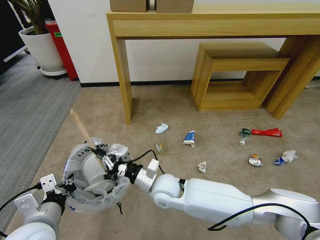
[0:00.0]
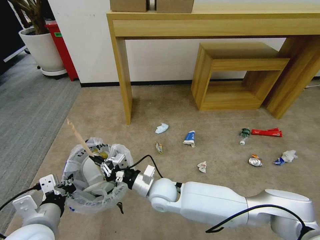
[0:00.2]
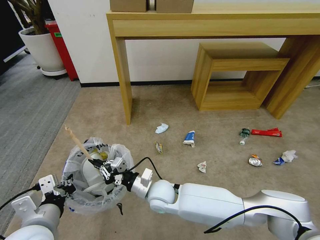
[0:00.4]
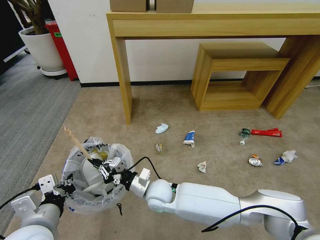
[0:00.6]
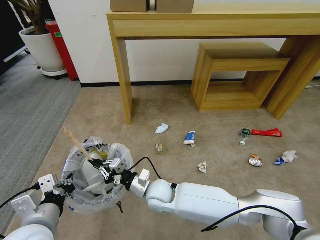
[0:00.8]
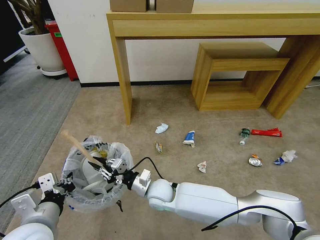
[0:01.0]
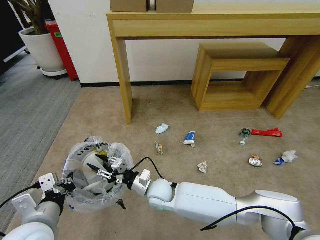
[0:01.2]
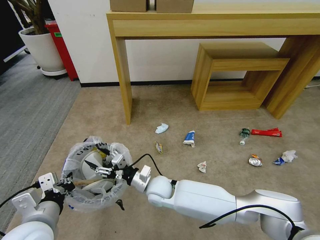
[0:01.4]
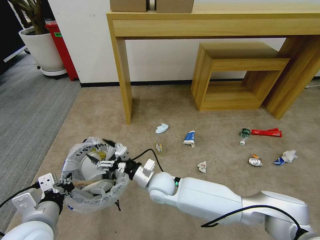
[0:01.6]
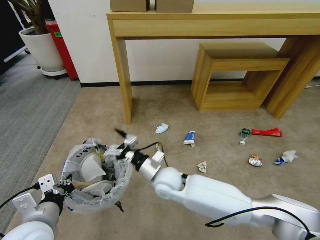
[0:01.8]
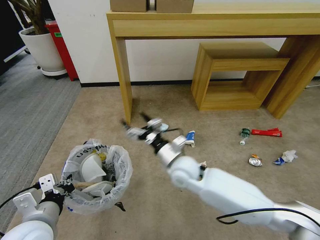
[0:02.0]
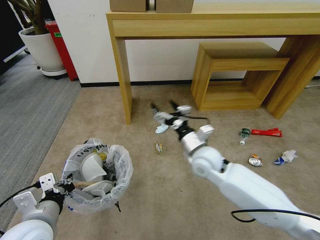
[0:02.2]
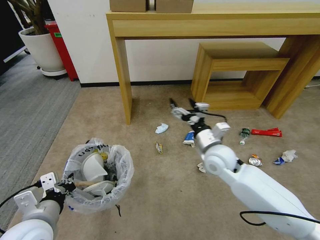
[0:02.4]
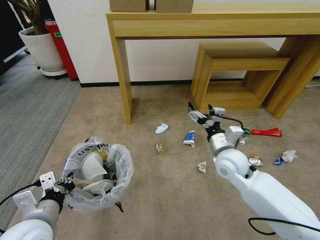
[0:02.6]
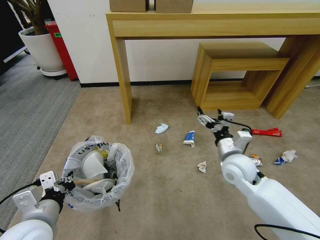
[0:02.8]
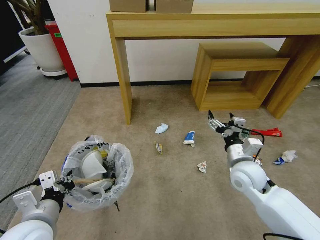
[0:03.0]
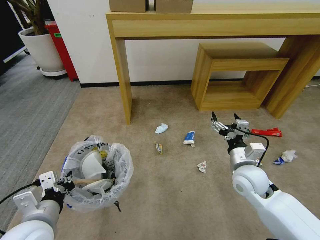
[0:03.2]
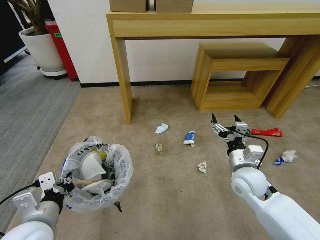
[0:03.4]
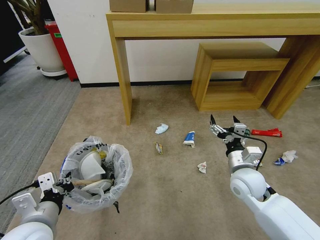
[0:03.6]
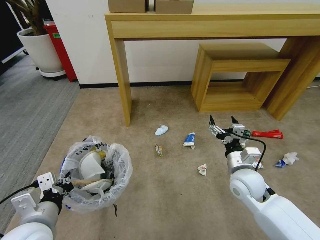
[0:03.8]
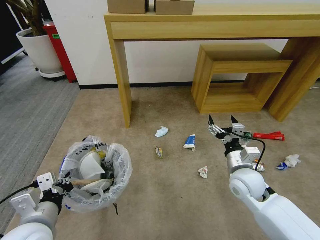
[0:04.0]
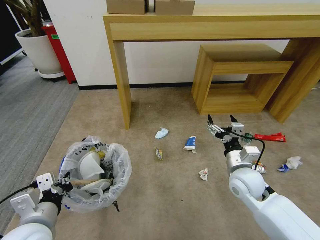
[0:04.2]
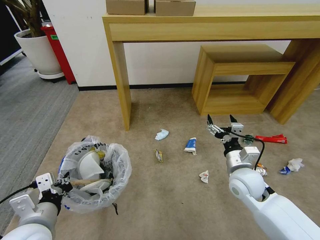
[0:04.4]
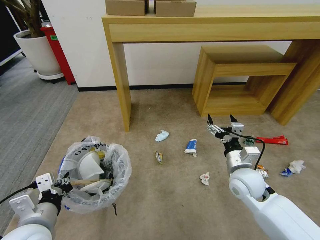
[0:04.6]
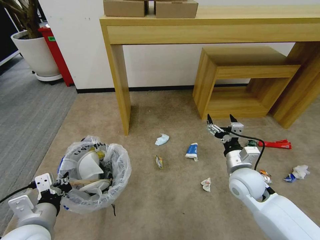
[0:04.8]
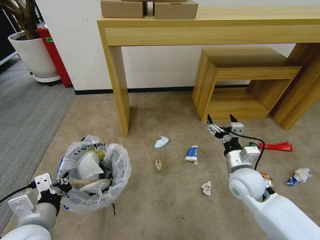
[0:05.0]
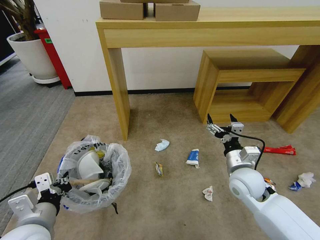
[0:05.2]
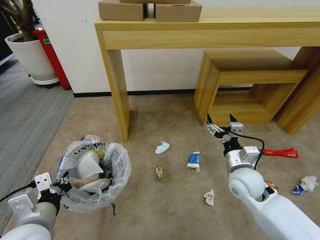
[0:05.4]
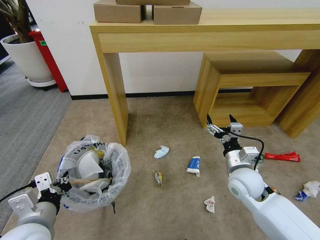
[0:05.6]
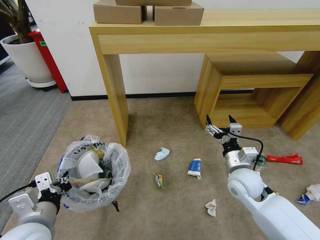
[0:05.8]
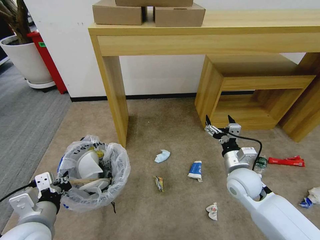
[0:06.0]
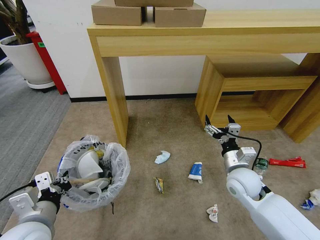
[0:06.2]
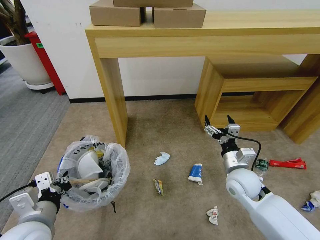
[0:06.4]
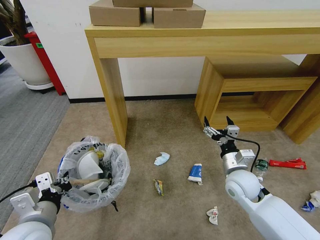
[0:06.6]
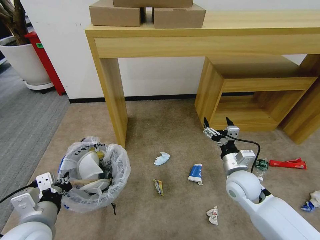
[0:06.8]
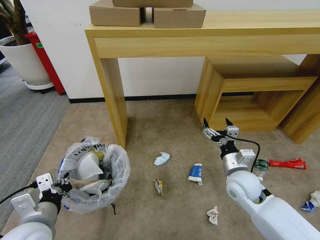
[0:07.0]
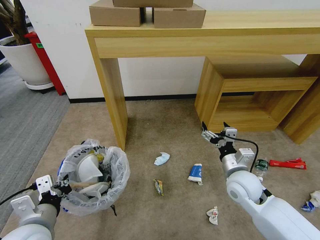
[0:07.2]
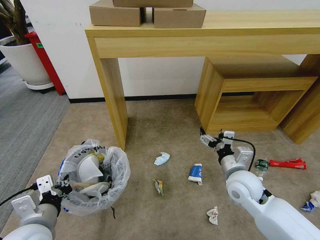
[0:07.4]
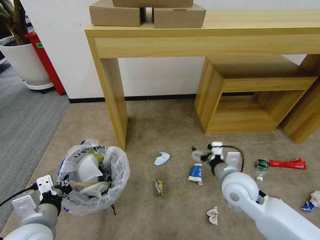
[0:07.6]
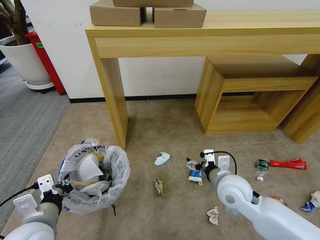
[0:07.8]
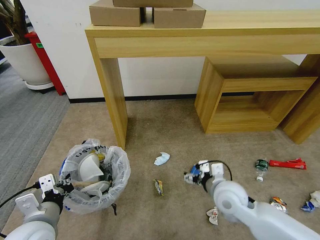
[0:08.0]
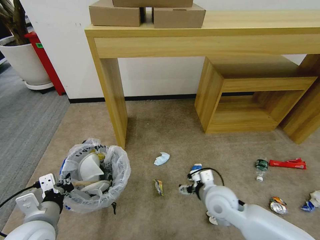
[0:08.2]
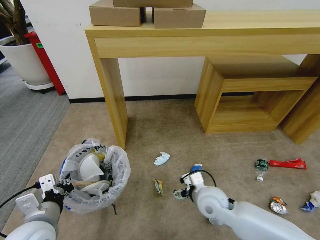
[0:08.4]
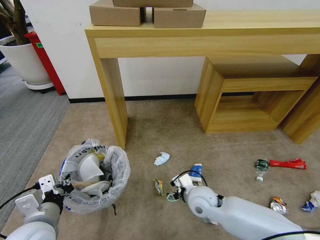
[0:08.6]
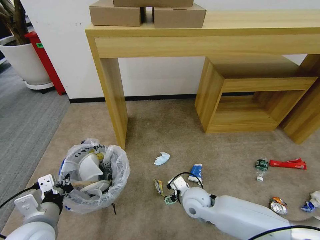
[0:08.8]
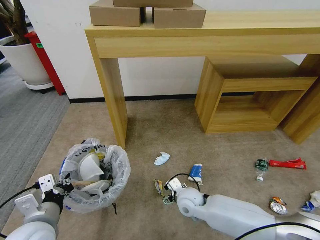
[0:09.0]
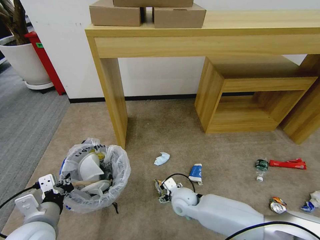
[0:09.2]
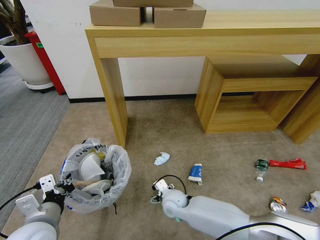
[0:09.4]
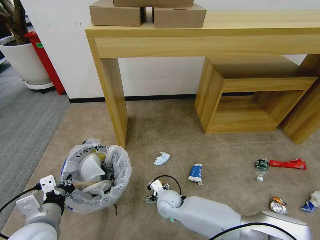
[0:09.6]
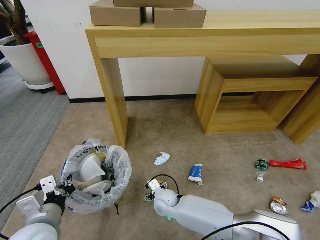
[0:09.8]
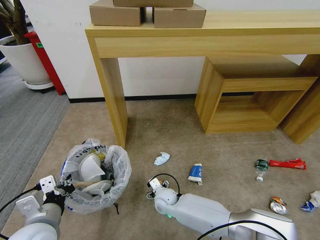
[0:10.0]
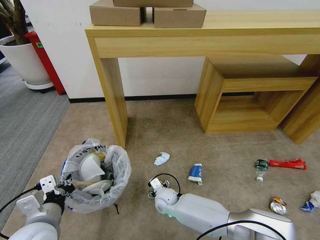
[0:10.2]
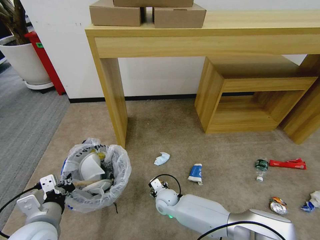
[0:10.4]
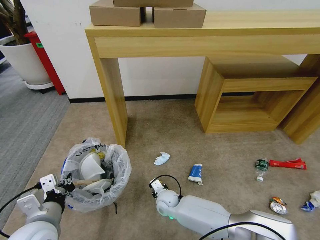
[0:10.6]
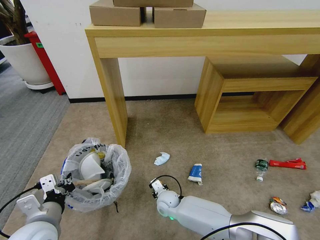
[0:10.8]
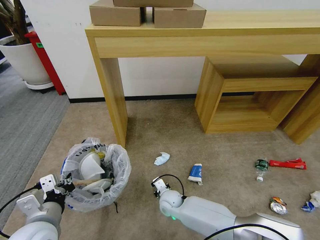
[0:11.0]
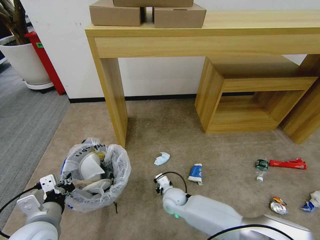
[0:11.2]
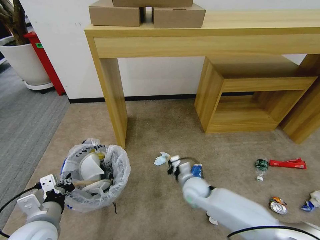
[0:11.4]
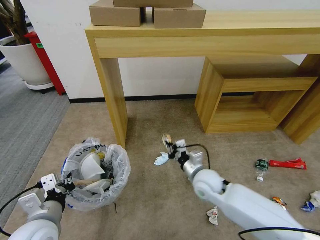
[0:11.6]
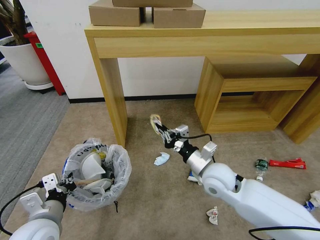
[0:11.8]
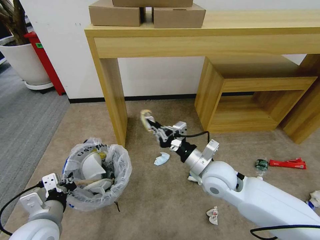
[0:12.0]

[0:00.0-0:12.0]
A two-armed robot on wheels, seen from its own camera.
Task of the whole recording: Pick up the trash bin and place the garbage on the floor into it.
0:00.0 to 0:01.6: The right gripper opens.
0:01.6 to 0:03.0: The right gripper travels to the right by some 25 cm.
0:06.0 to 0:07.6: The grippers stay close to where they were, moving slightly.
0:07.6 to 0:09.0: The right gripper heads to the left and downward, covering roughly 20 cm.
0:09.0 to 0:10.4: The right gripper goes about 10 cm downward and to the left.
0:10.4 to 0:12.0: The right gripper heads upward and to the right, covering roughly 30 cm, and closes its fingers.

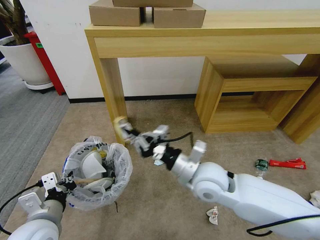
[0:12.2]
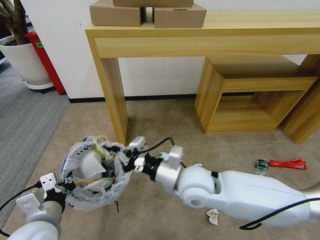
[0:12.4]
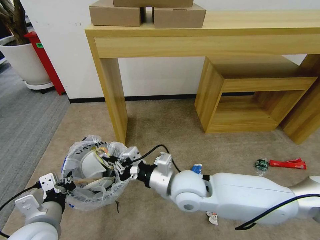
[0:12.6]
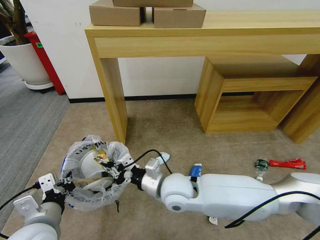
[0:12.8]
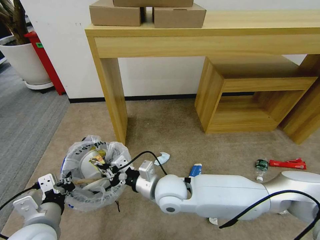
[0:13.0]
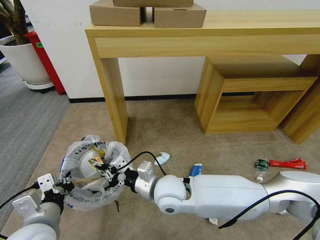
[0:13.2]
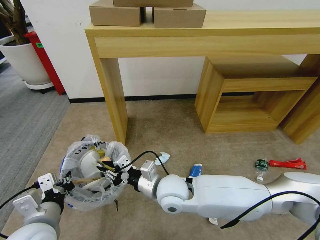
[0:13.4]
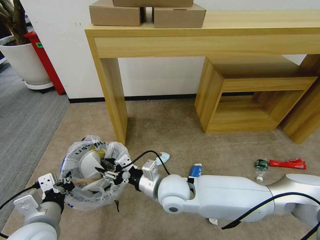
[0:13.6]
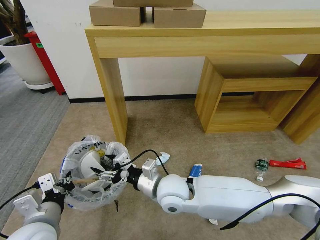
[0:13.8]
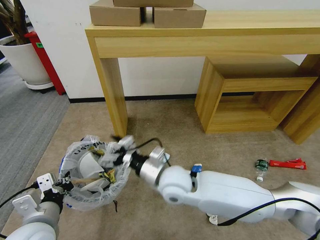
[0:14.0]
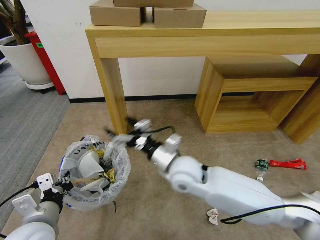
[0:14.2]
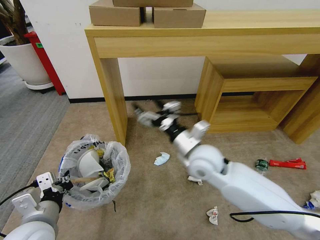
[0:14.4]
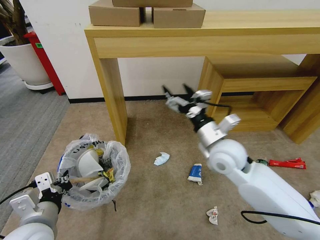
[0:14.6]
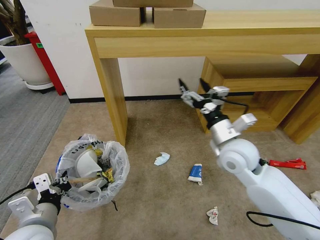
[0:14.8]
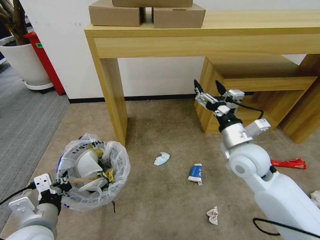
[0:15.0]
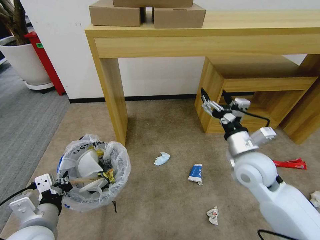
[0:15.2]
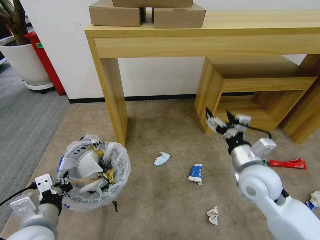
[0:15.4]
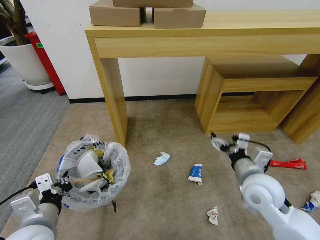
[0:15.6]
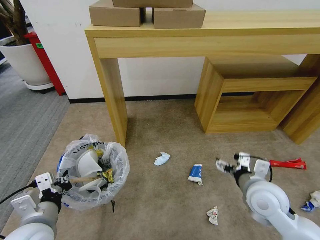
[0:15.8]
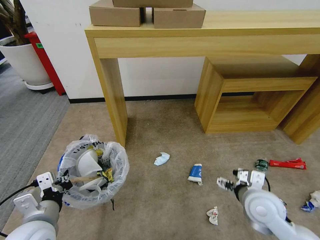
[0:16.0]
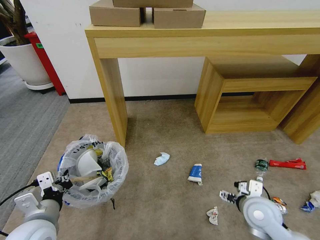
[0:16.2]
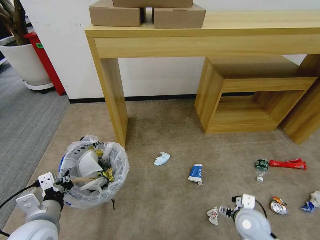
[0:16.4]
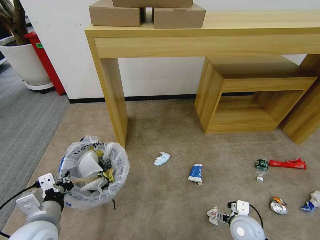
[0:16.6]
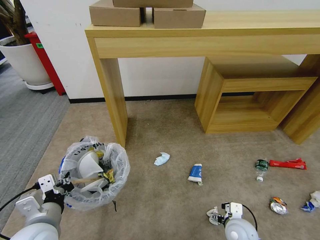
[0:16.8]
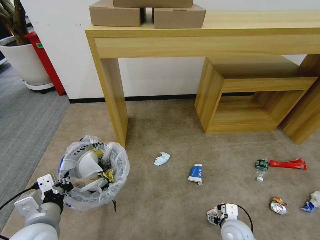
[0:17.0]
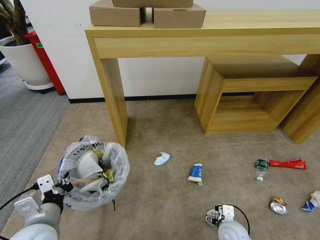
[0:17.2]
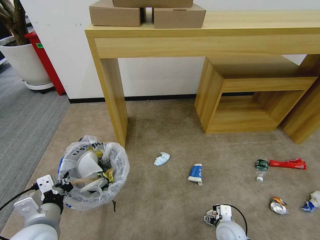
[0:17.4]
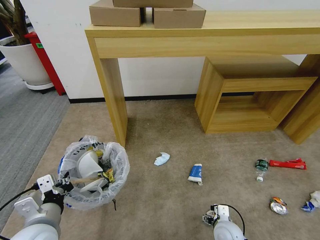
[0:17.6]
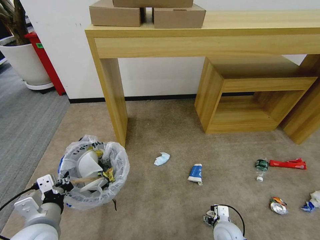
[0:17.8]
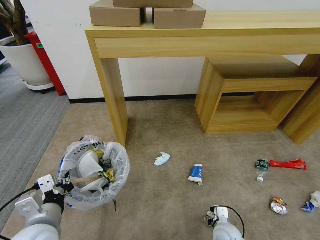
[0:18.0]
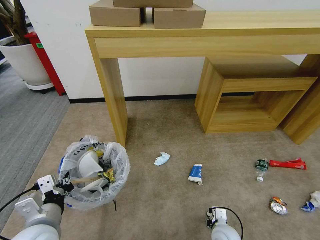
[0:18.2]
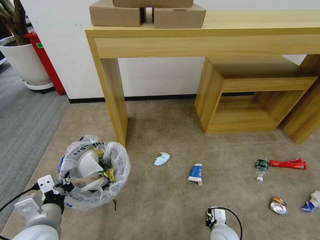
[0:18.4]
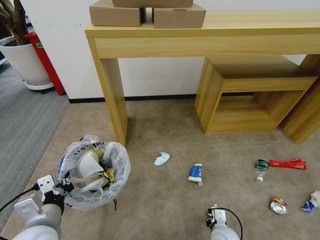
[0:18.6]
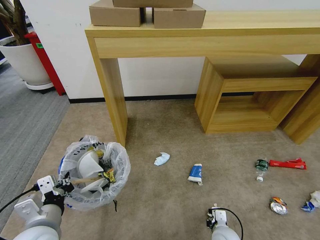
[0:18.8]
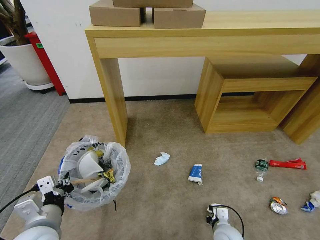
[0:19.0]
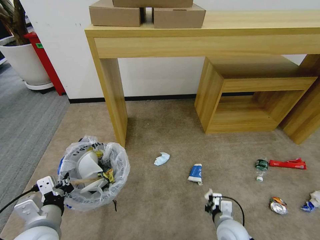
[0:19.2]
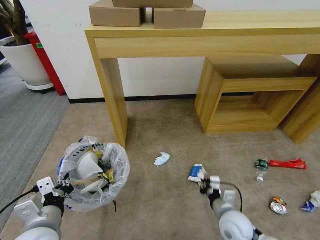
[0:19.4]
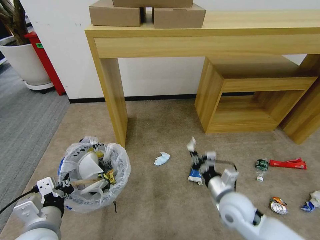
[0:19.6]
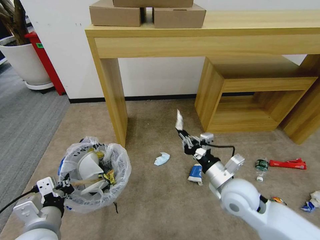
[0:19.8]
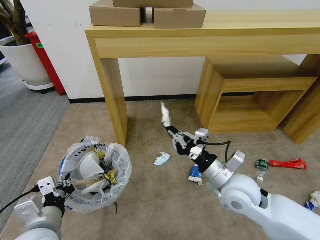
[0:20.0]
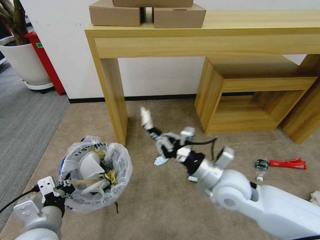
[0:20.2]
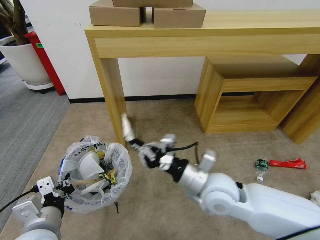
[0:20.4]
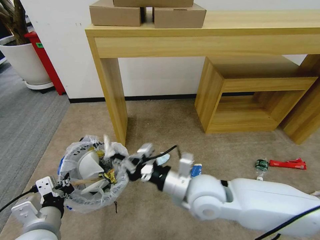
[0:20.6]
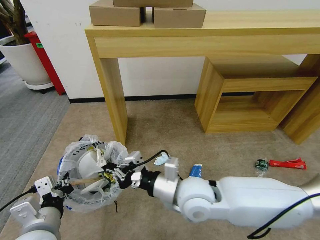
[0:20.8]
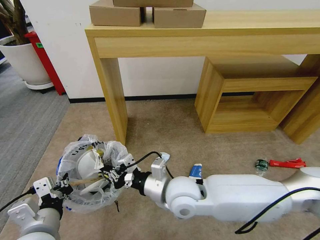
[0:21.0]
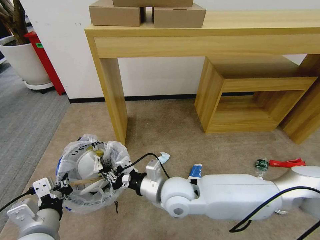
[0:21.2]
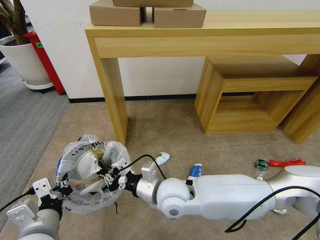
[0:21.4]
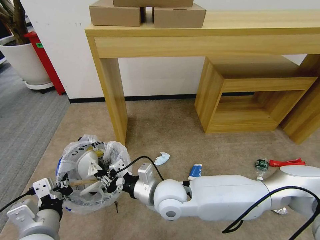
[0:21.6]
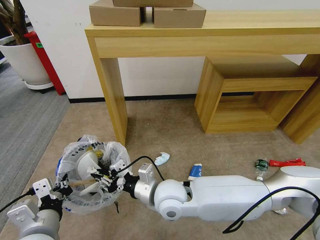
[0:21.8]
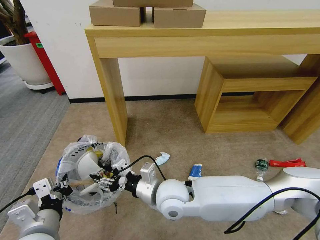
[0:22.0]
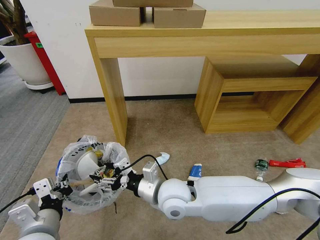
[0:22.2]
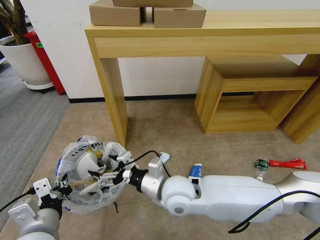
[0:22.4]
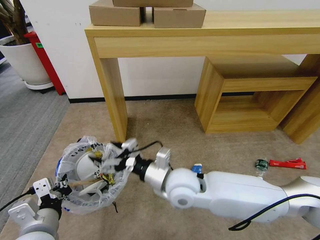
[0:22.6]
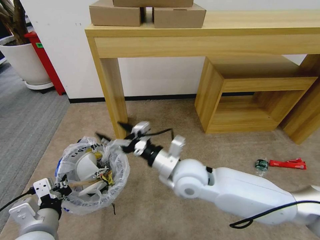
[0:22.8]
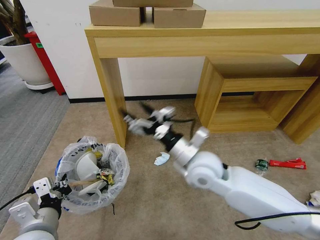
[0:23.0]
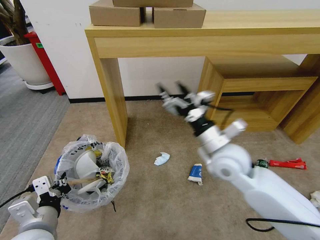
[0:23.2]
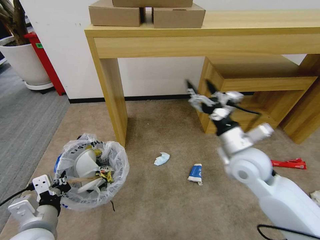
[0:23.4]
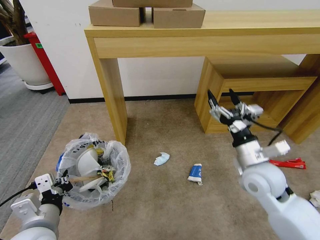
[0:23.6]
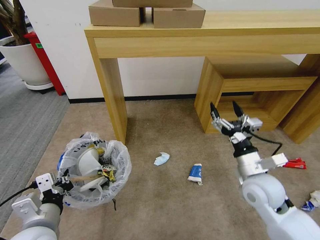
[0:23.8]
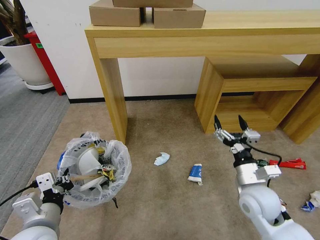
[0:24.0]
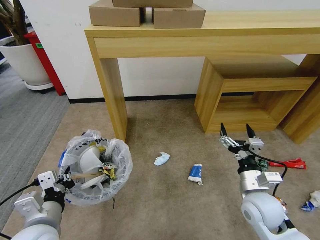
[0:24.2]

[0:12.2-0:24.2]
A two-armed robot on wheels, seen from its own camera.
Task of the whole recording: Pick up the trash bin and place the garbage on the floor into it.
0:12.2 to 0:13.8: The right gripper is displaced to the left and downward by approximately 10 cm, and opens its fingers.
0:13.8 to 0:15.2: The right gripper goes some 20 cm to the right.
0:15.2 to 0:16.6: The right gripper is displaced downward and backward by roughly 25 cm.
0:16.6 to 0:18.2: The right gripper heads downward, covering some 10 cm, and closes its fingers.
0:18.2 to 0:19.8: The right gripper moves upward, approximately 25 cm, and closes.
0:19.8 to 0:21.2: The right gripper goes roughly 15 cm to the left.
0:21.2 to 0:22.6: The right gripper opens its fingers.
0:22.6 to 0:24.2: The right gripper heads to the right, covering roughly 20 cm.
